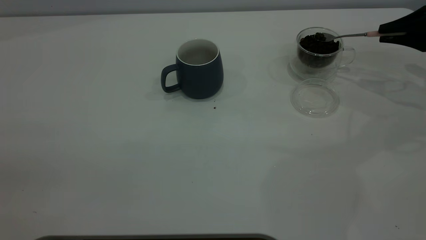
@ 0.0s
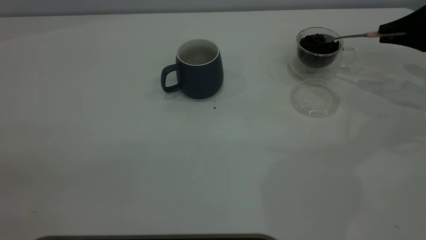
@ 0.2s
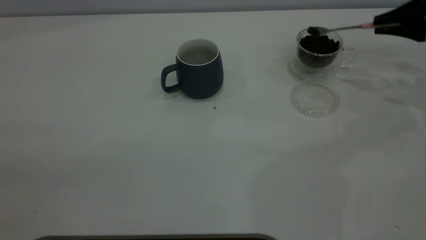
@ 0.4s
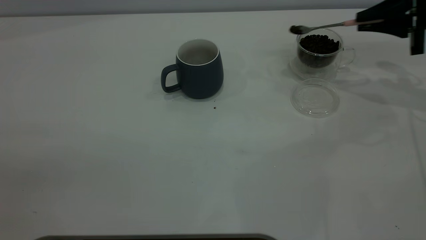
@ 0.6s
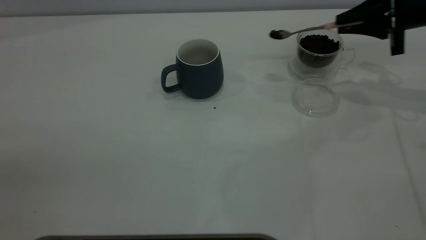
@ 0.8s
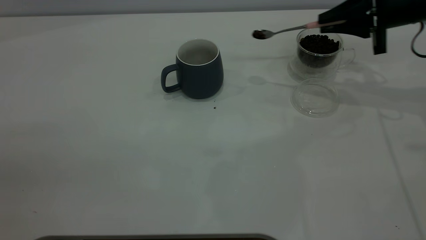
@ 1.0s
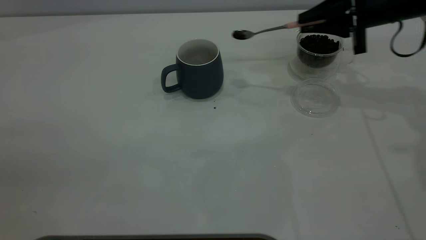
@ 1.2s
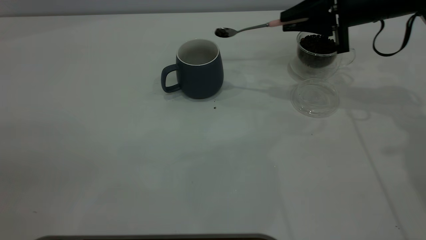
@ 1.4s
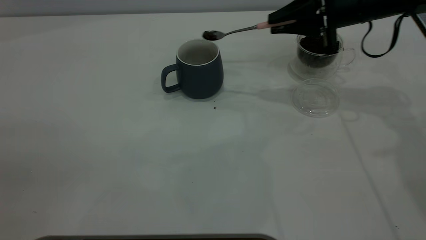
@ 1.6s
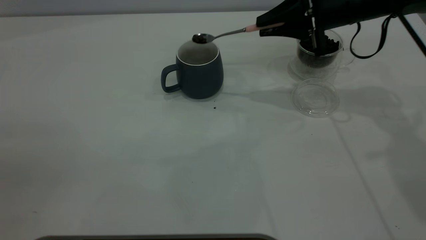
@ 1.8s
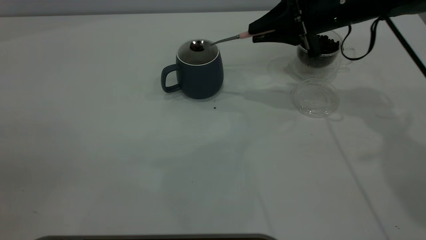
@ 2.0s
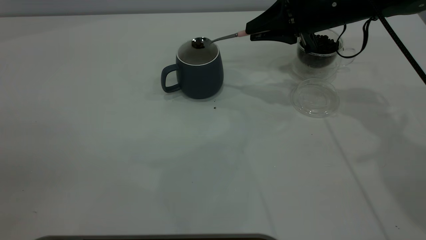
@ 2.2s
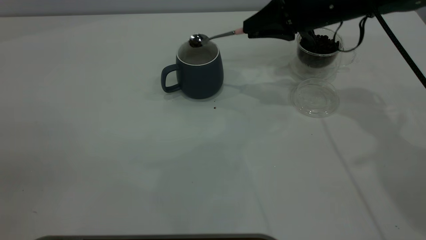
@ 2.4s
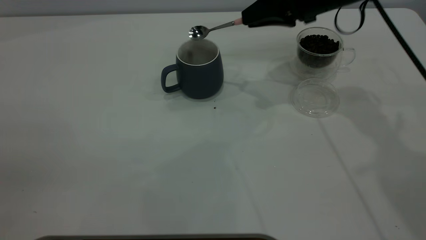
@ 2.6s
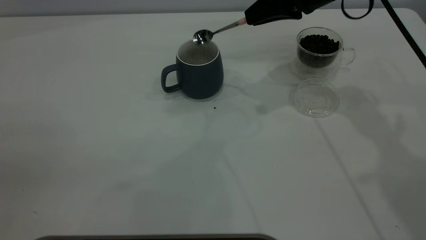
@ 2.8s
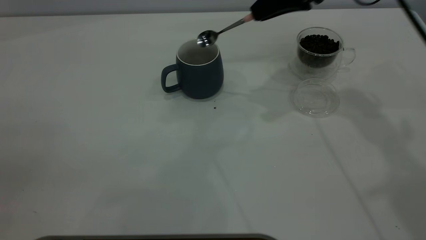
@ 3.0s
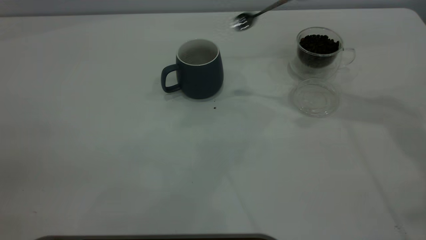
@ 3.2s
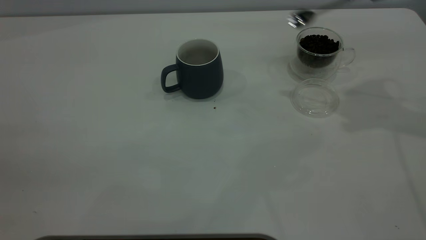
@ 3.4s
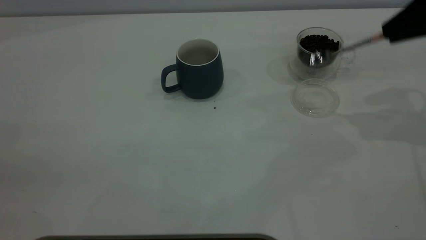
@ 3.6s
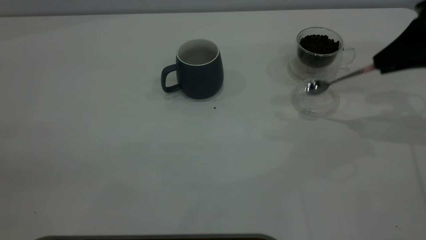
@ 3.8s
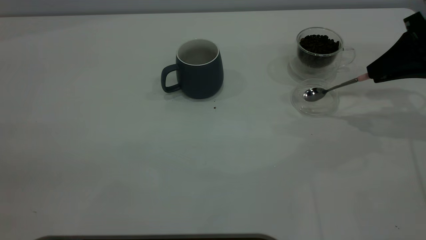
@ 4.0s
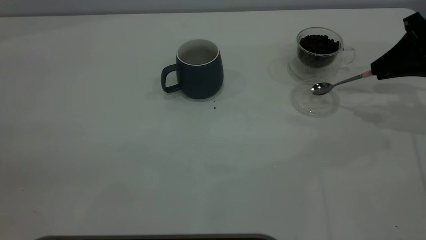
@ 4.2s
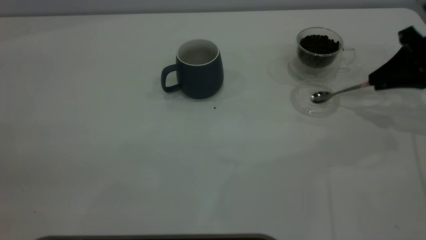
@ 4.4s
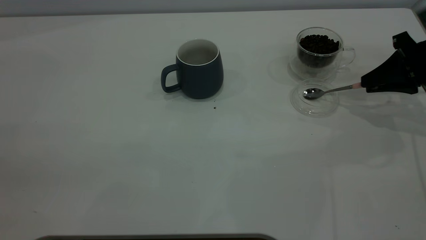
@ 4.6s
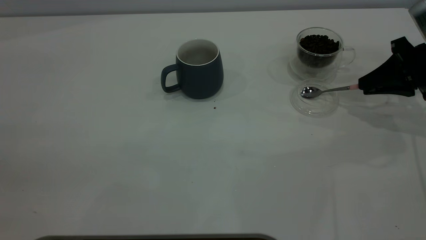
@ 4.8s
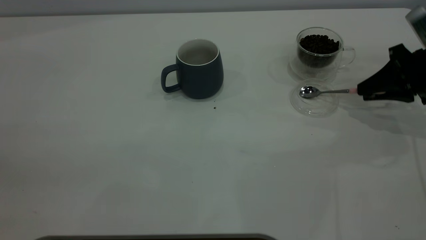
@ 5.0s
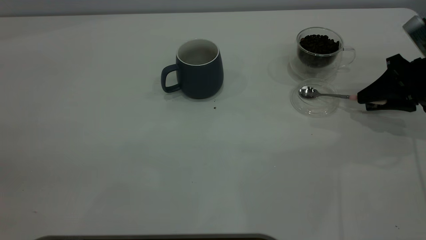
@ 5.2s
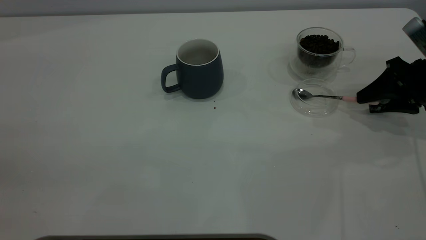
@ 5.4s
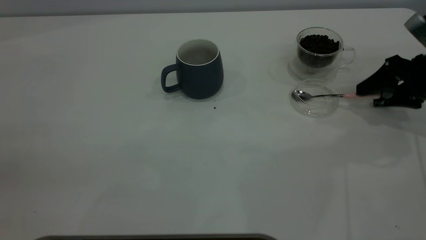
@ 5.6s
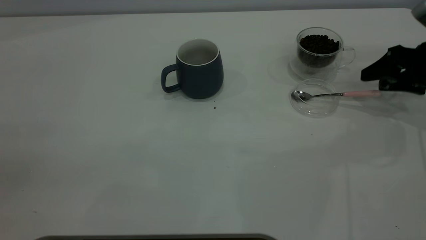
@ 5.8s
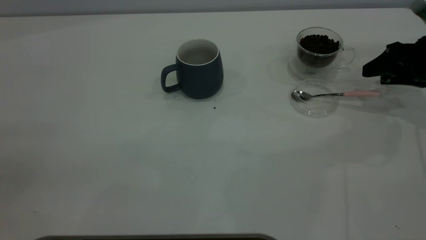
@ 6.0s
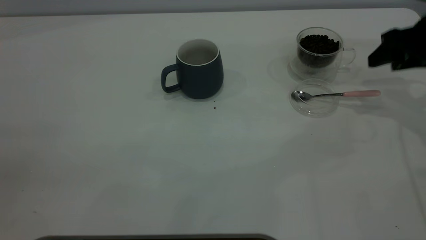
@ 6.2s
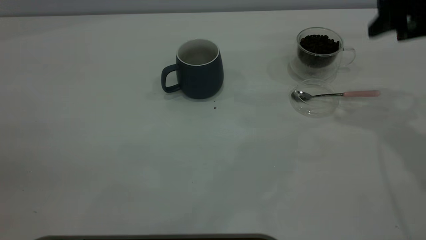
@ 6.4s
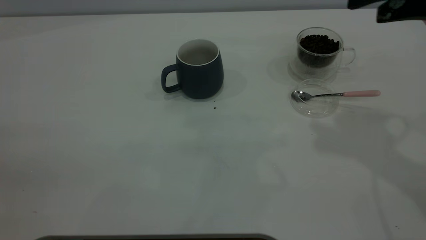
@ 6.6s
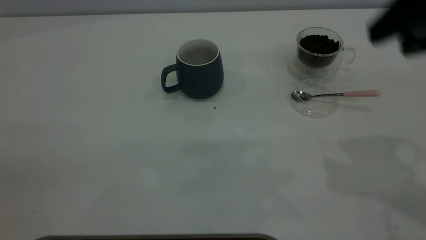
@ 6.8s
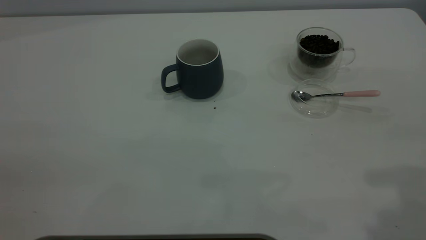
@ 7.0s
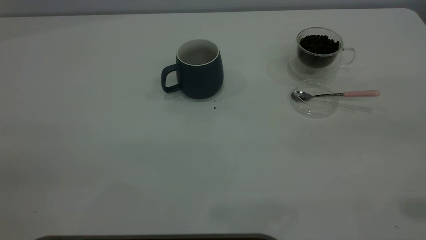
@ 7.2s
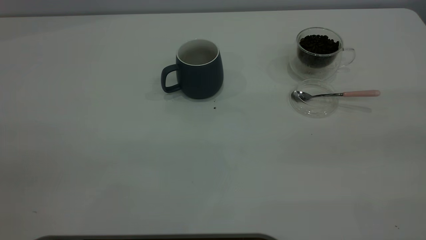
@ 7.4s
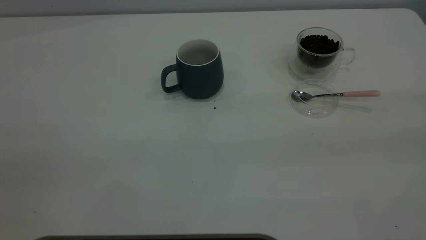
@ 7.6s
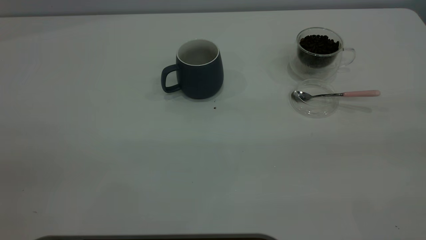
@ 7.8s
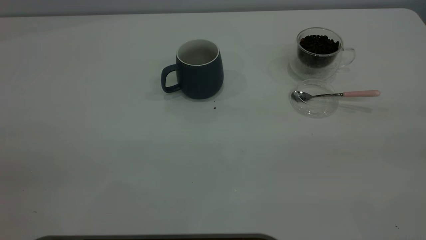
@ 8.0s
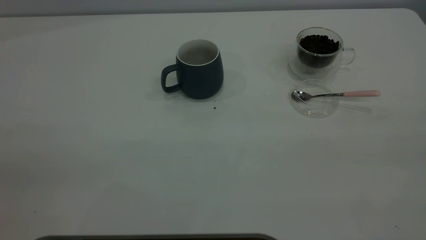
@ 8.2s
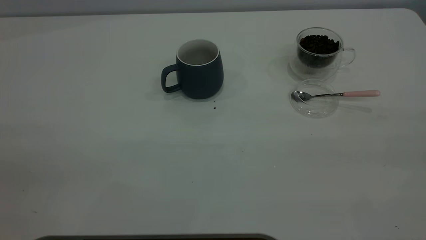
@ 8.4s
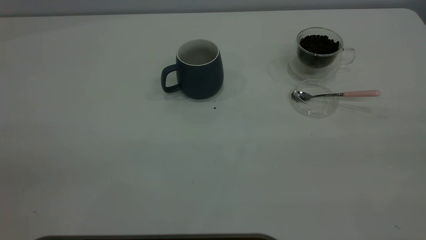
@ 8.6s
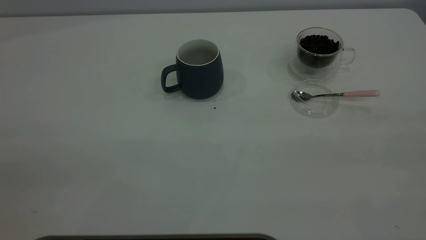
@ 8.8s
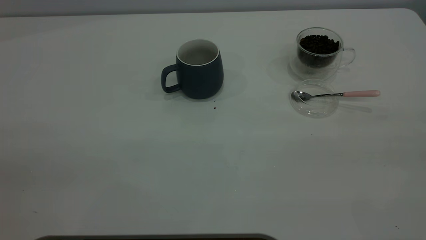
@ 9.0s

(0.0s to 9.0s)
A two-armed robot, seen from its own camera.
Task of the whole recording: the left gripper place the grey cup in the center of the table, the right gripper take the pink spoon from the cup lid and scoop out the coffee beans from the coffee cup and put them into the grey cup, the right gripper put the spoon back into the cup lid.
Step, 0.0s - 2.8s: Scoop a spoonful of beans into the cup.
Step, 3.0s - 5.8s: Place the spoon back in its original place.
0.0s - 1.6s: The right gripper goes approximately 20 cm to the left.
1.6s - 3.0s: The right gripper heads upward, covering approximately 5 cm.
3.0s - 4.4s: The right gripper shifts some 20 cm to the right and downward.
4.4s - 6.0s: The right gripper opens its fingers.
6.0s - 7.6s: The right gripper heads backward and upward, covering roughly 40 cm.
